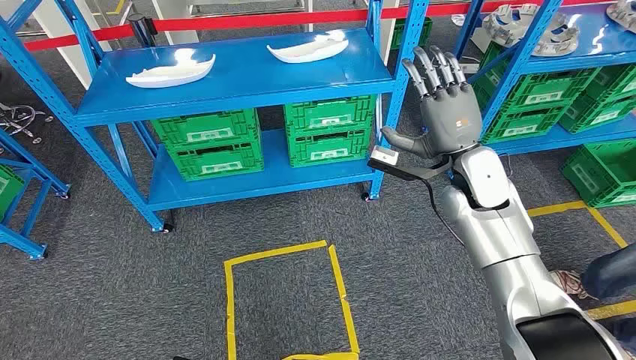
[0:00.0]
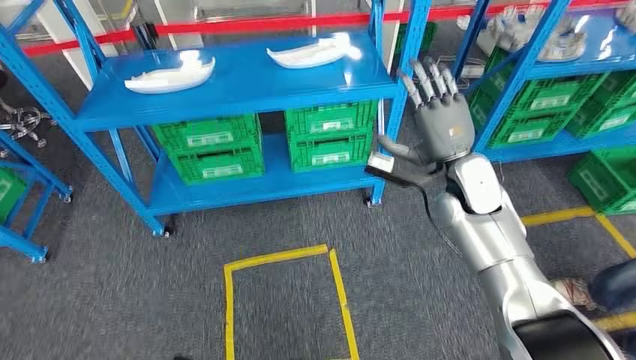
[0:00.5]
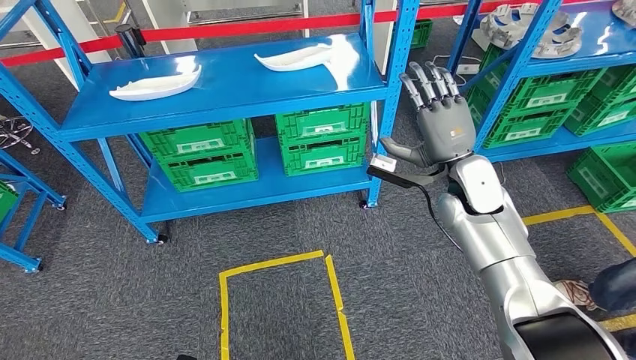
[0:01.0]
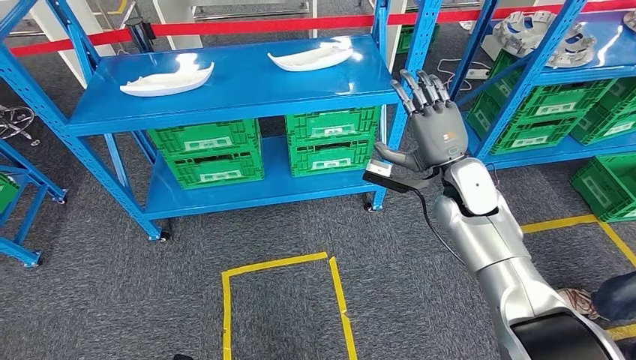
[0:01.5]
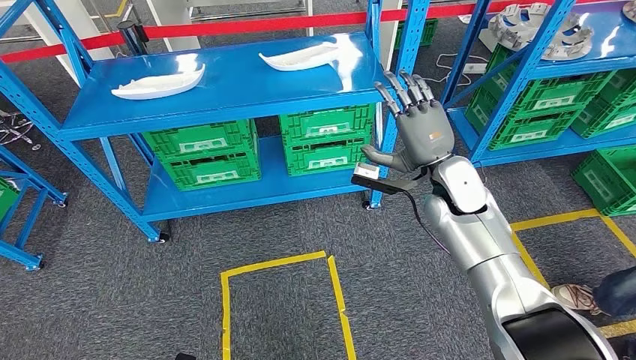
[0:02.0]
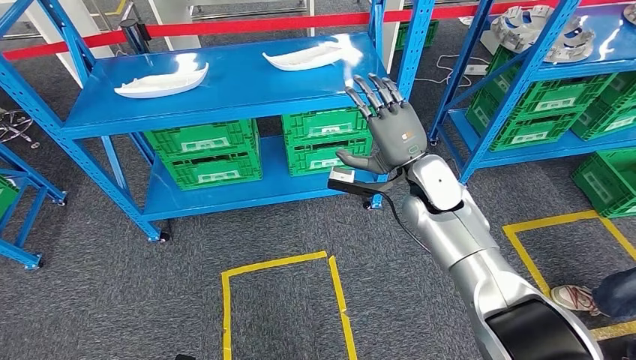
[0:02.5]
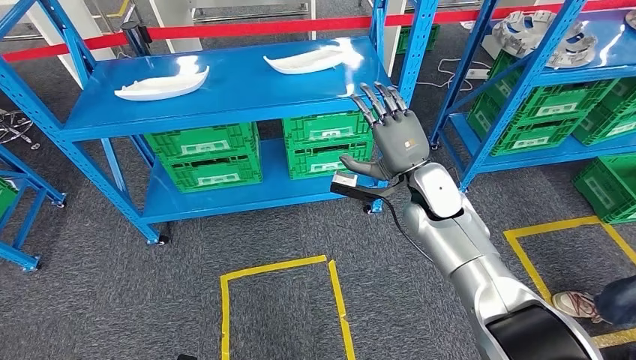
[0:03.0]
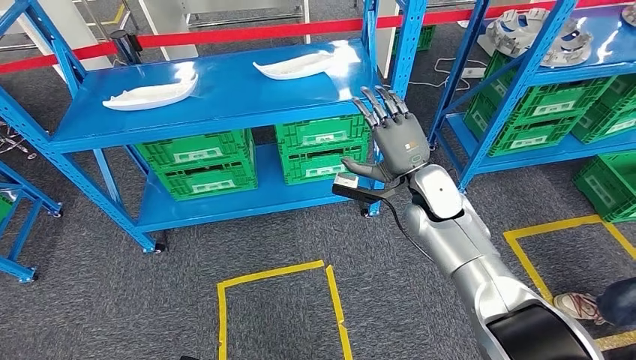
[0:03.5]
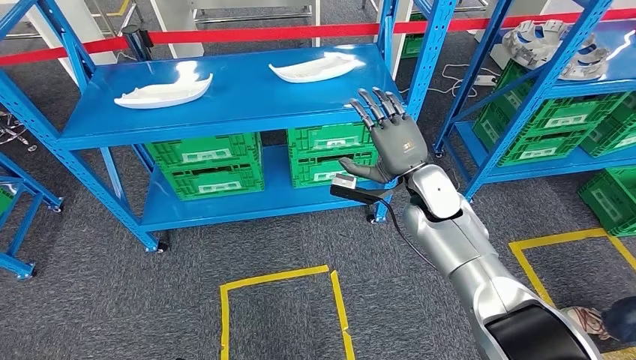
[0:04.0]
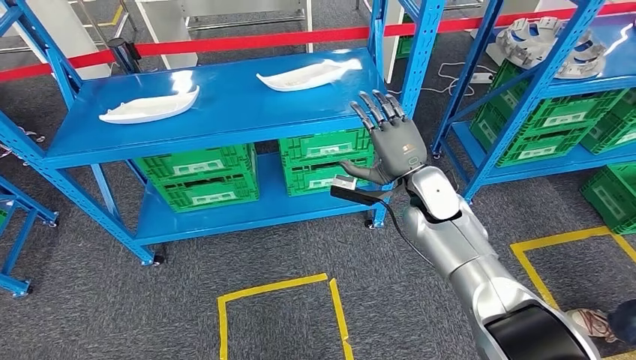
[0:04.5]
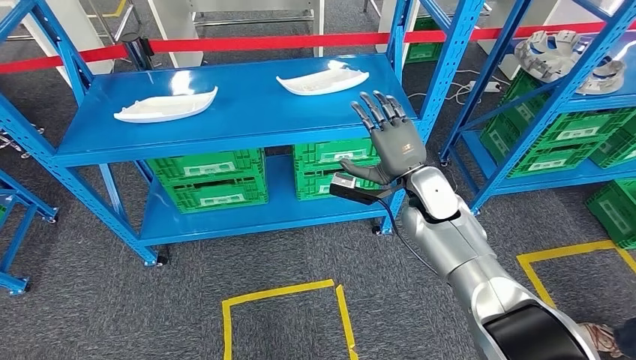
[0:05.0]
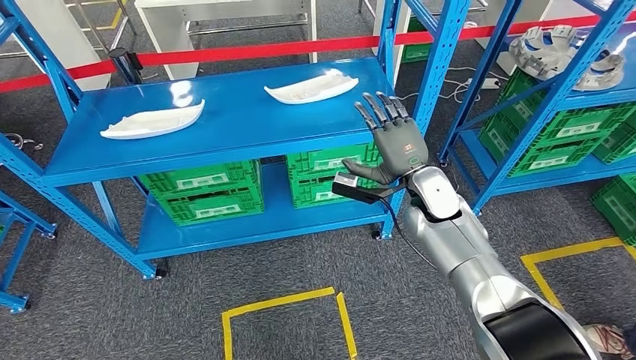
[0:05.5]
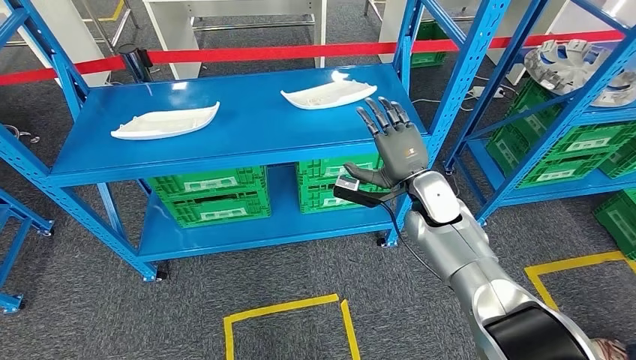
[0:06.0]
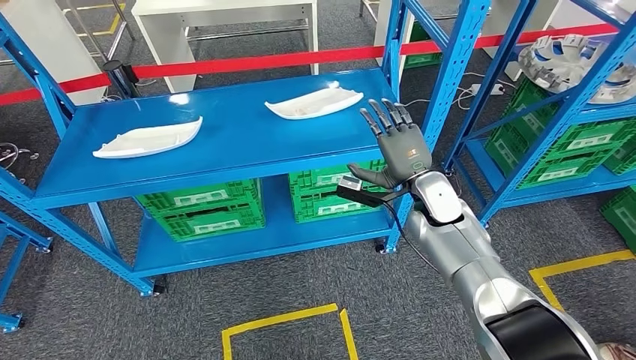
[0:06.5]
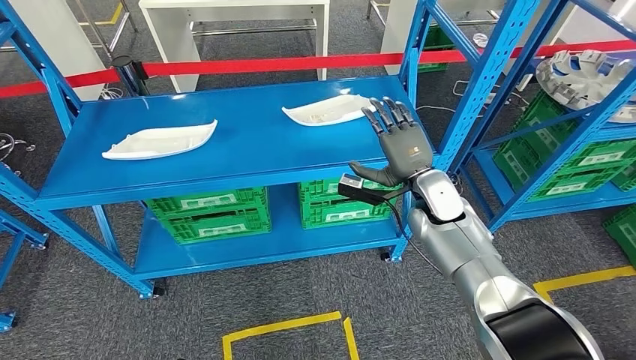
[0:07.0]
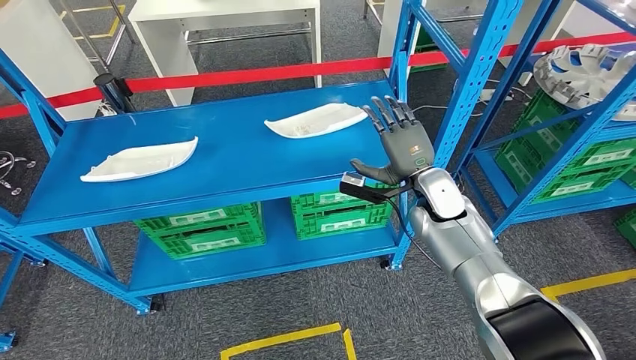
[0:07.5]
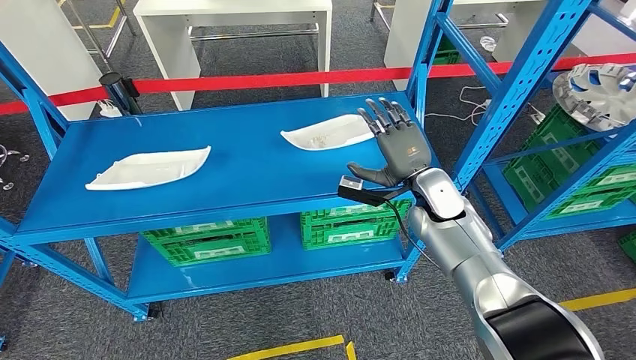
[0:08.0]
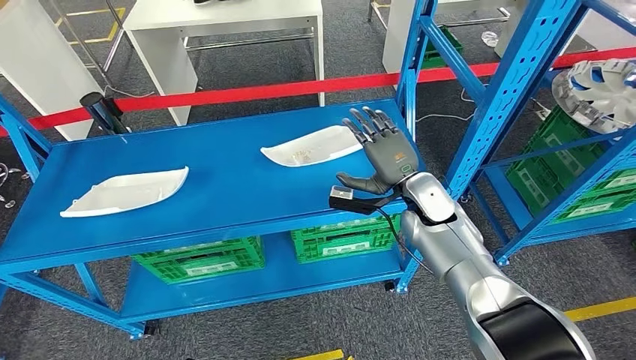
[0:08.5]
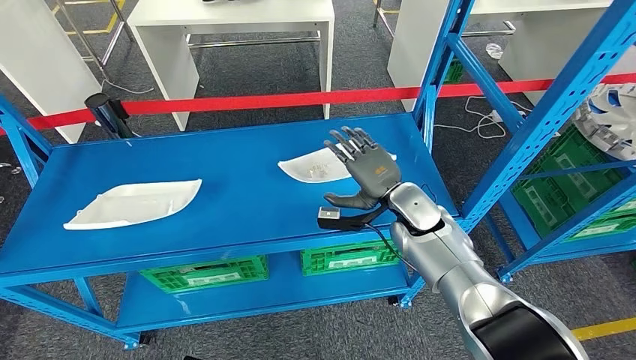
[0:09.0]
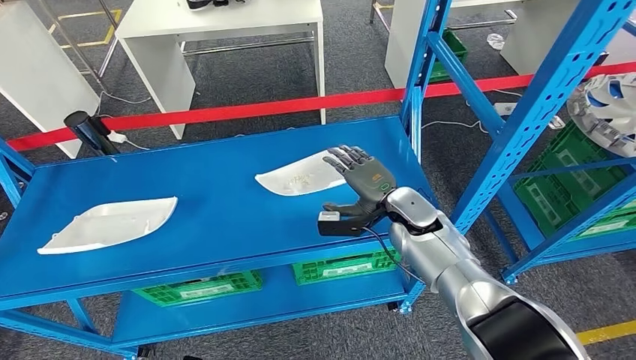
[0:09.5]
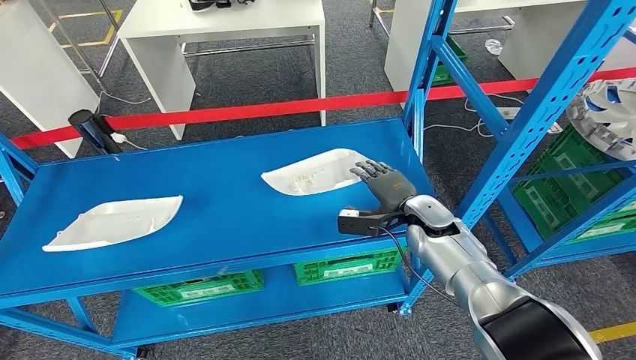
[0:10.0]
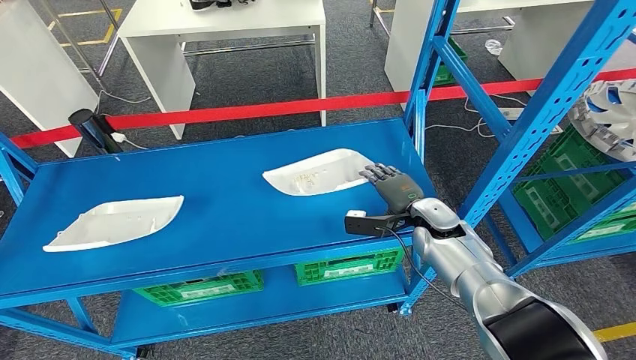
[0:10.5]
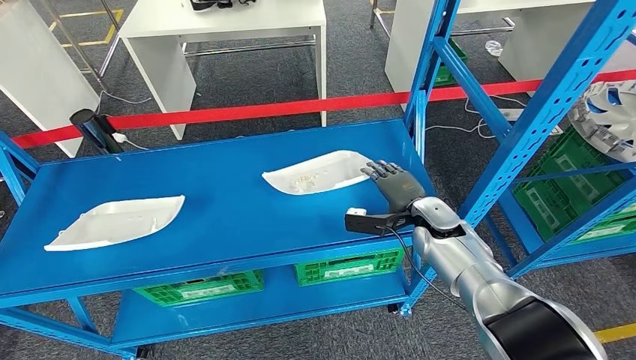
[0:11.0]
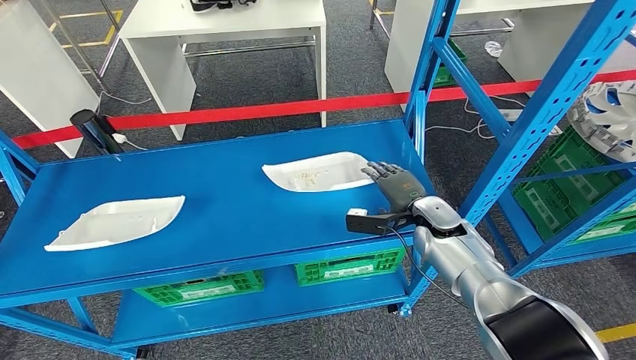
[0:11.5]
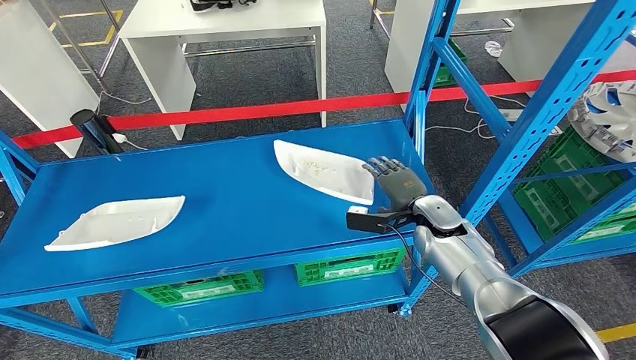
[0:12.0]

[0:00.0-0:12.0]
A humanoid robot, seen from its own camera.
0:10.0 to 0:12.0: The hands make only small movements.

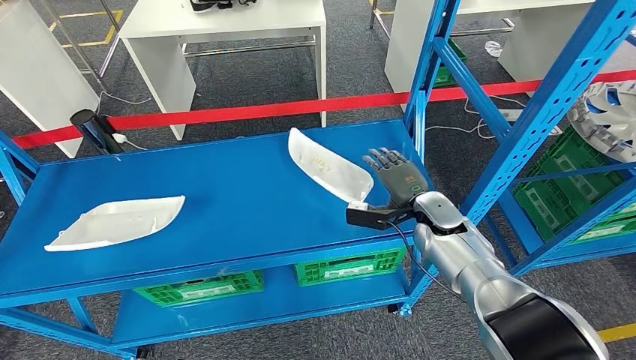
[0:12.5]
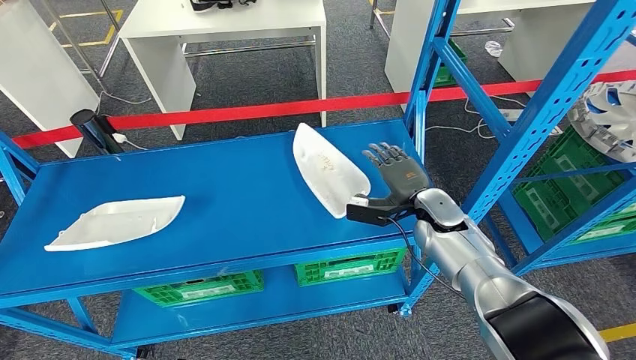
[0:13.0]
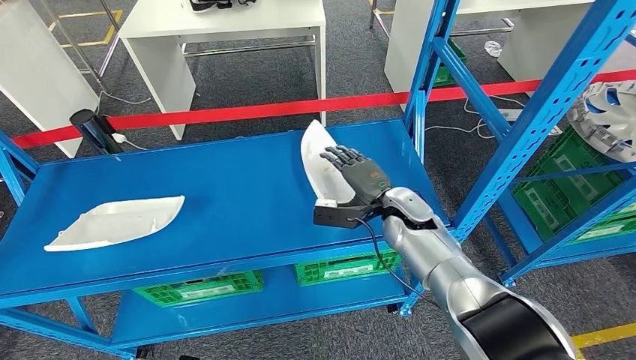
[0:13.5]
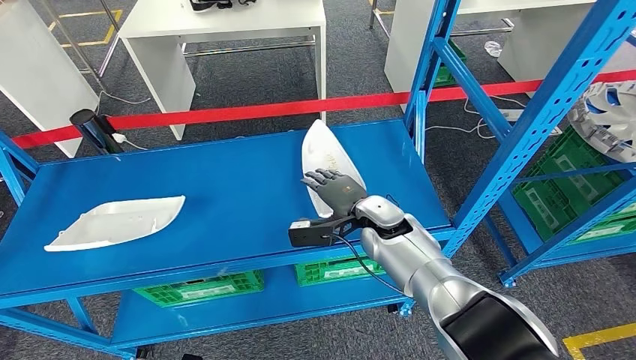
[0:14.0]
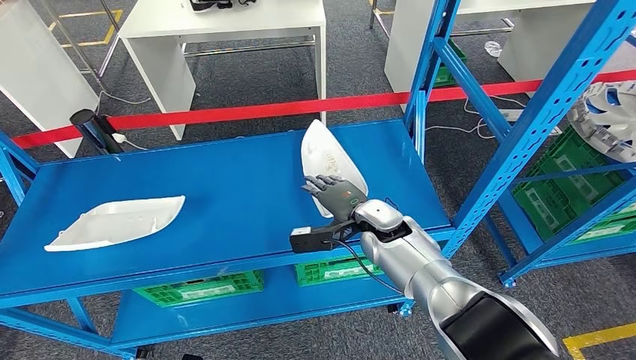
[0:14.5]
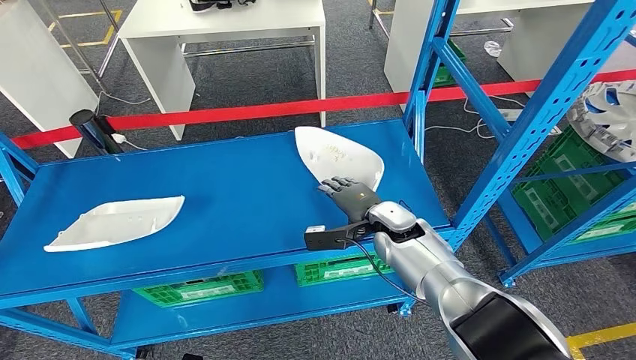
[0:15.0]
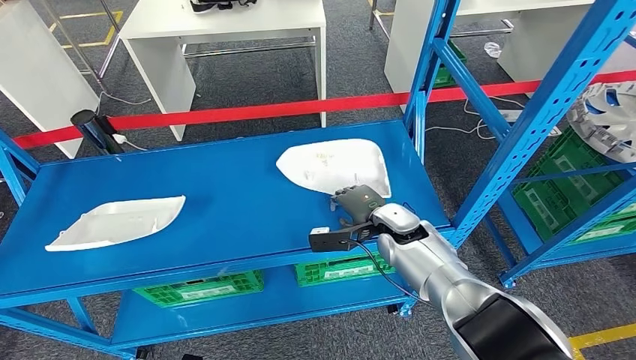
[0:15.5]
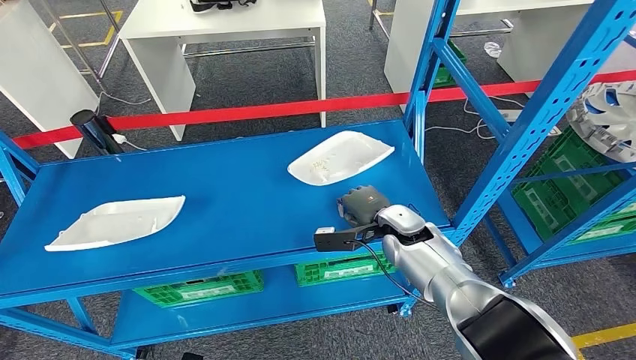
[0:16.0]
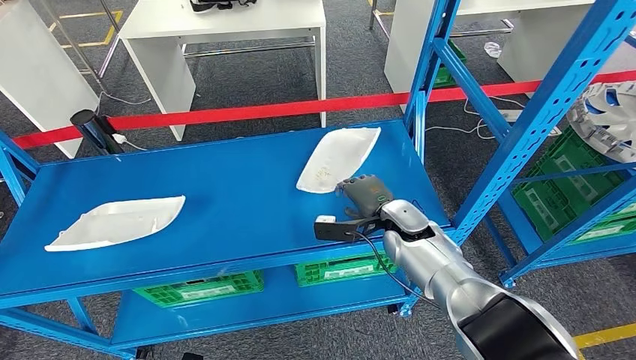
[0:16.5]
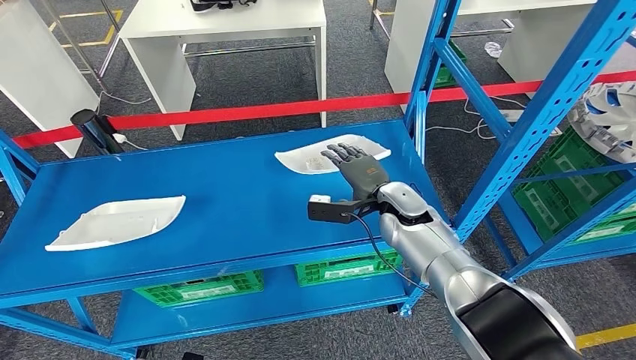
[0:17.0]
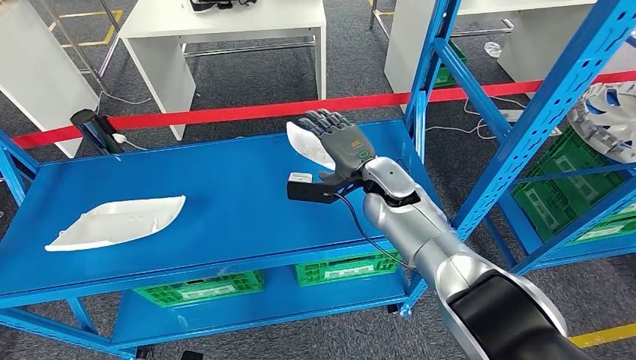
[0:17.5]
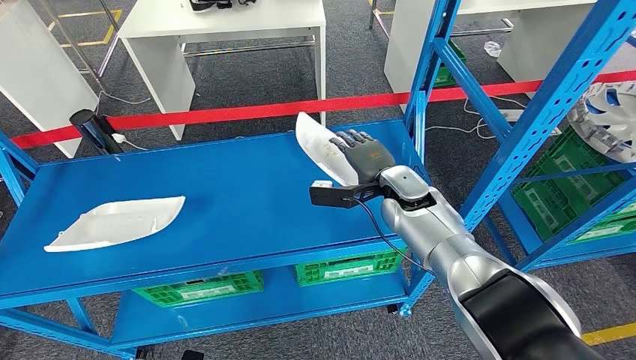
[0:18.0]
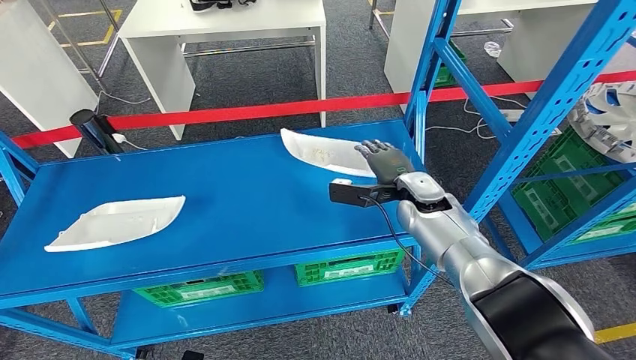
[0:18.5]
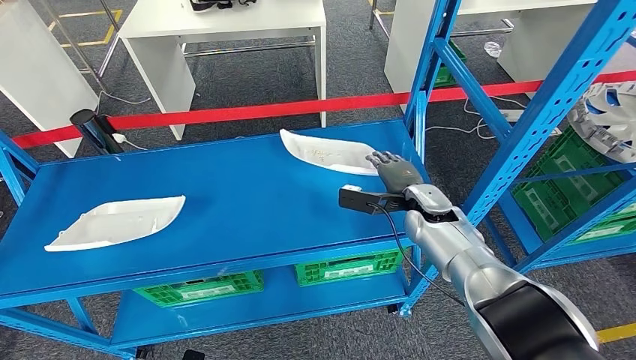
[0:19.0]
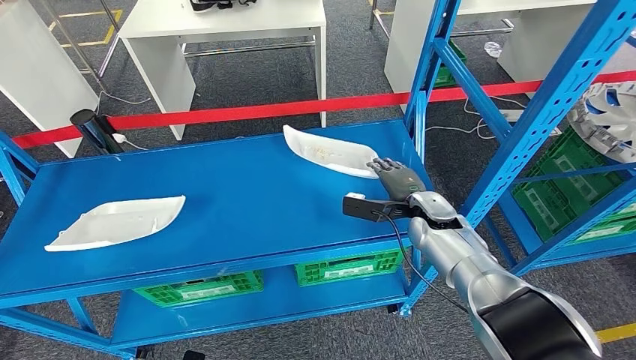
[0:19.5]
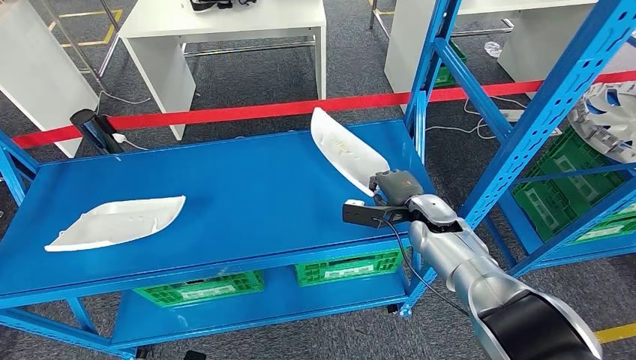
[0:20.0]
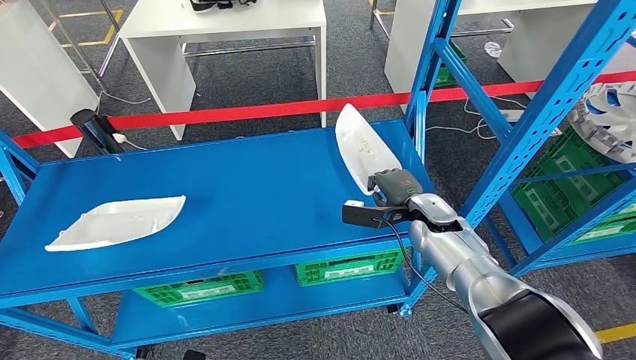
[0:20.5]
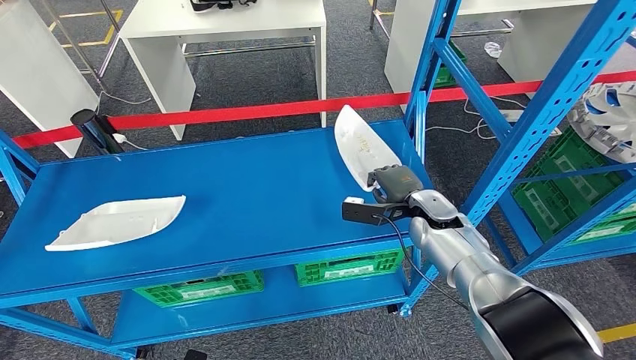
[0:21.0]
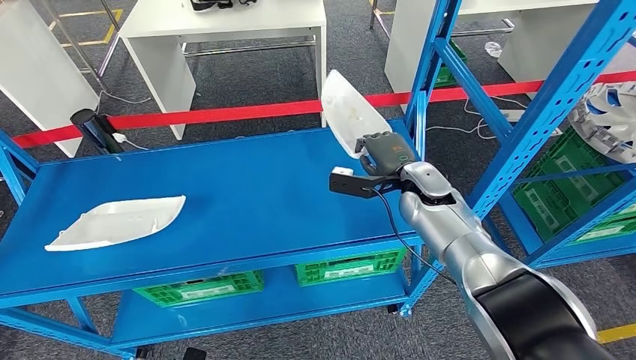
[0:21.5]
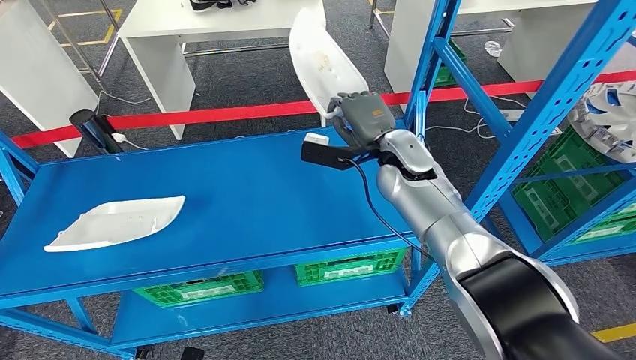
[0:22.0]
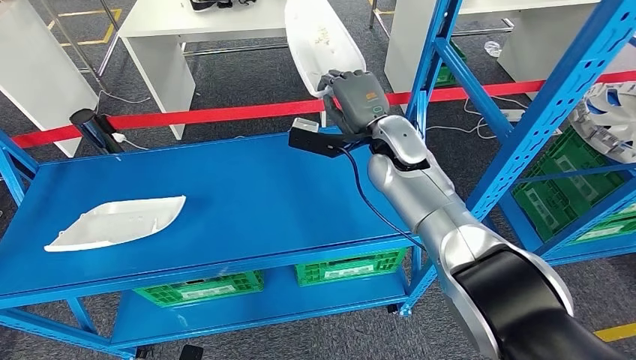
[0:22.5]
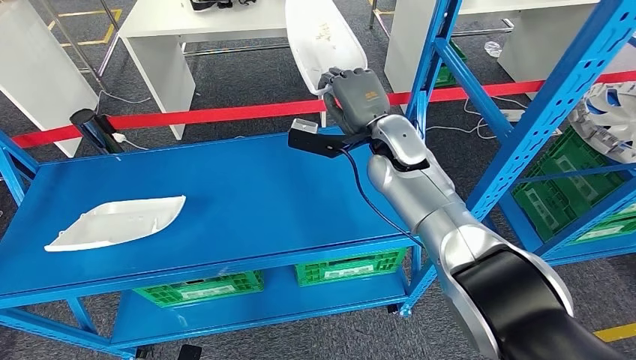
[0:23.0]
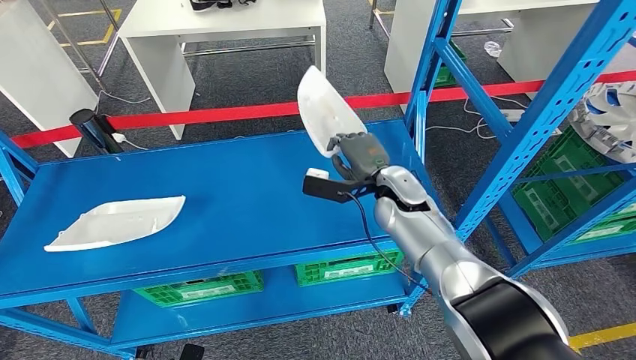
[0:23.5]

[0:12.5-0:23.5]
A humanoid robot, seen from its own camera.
0:12.5 to 0:14.5: The right hand travels to the left by some 10 cm.
0:14.5 to 0:16.0: The right hand shifts by some 5 cm.
0:16.0 to 0:18.0: The right hand moves upward, roughly 5 cm.
0:18.0 to 0:20.0: The right hand travels to the right and downward by roughly 10 cm.
0:20.0 to 0:21.5: The right hand goes approximately 5 cm upward.
0:21.5 to 0:23.5: The right hand shifts approximately 5 cm to the left, and goes upward and returns, roughly 10 cm each way.
